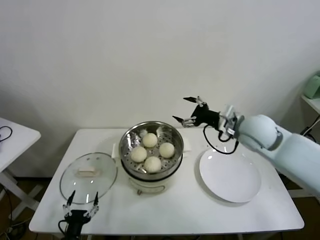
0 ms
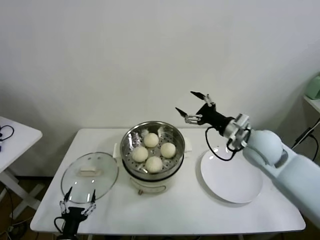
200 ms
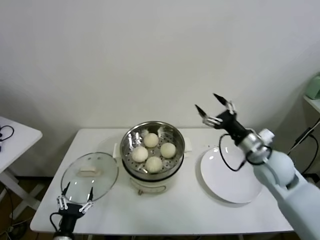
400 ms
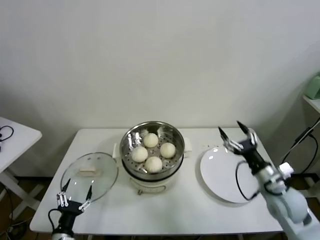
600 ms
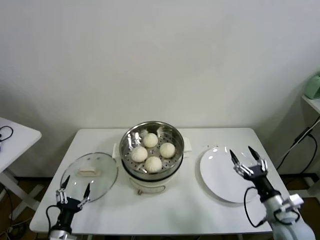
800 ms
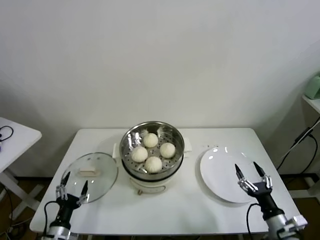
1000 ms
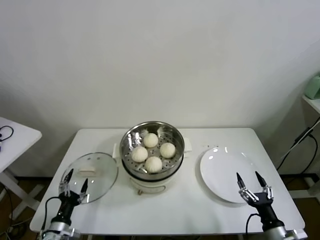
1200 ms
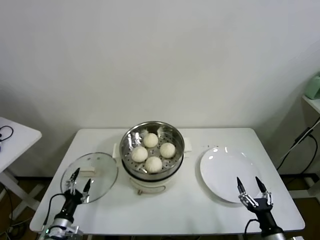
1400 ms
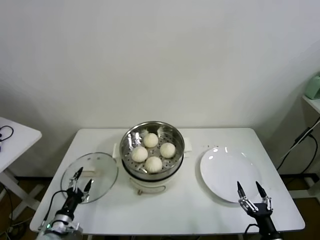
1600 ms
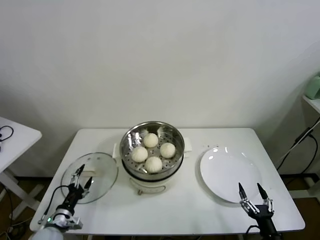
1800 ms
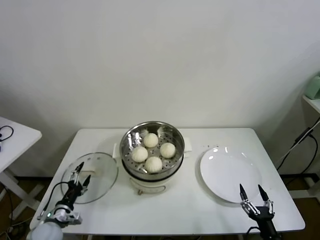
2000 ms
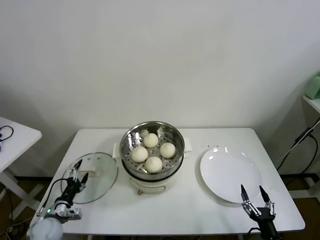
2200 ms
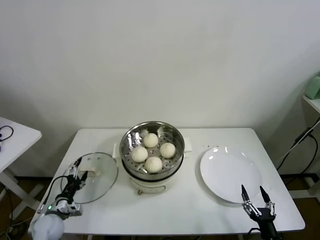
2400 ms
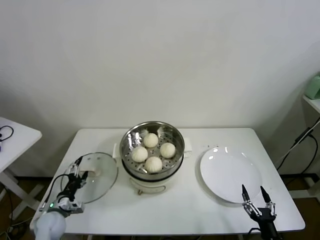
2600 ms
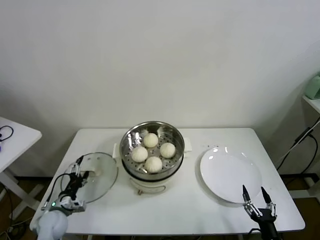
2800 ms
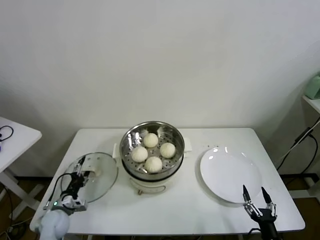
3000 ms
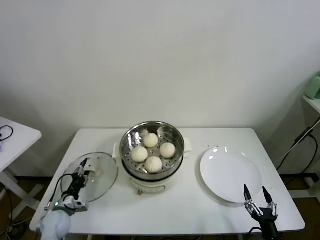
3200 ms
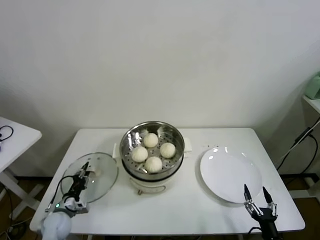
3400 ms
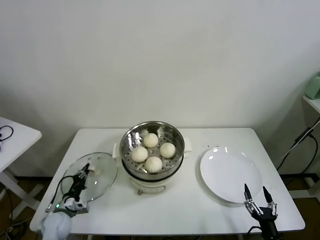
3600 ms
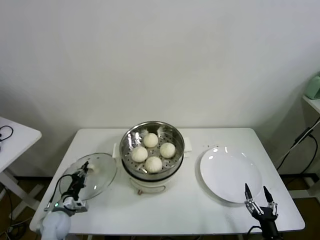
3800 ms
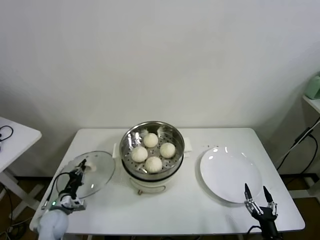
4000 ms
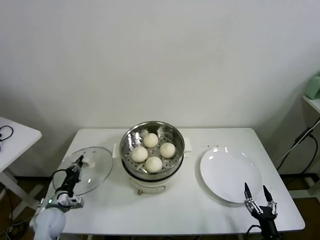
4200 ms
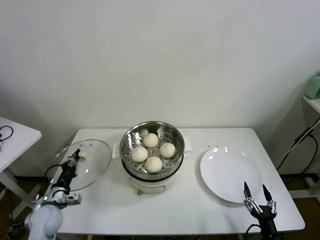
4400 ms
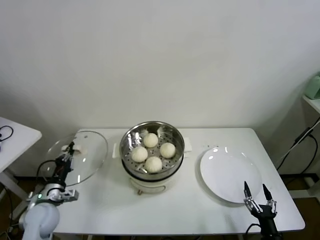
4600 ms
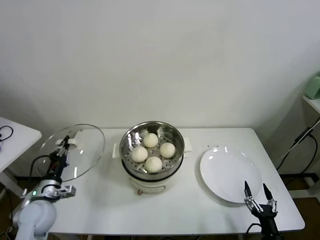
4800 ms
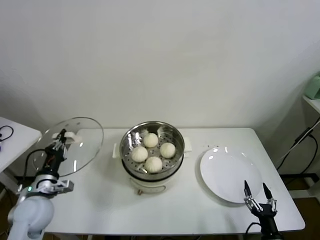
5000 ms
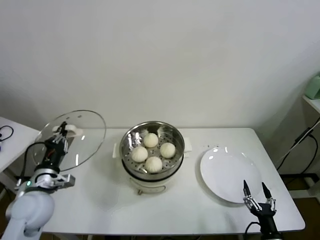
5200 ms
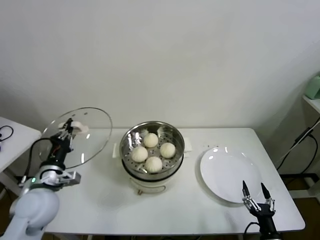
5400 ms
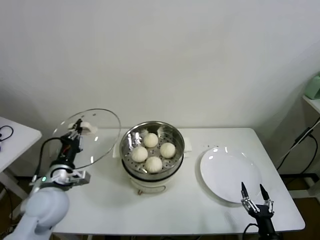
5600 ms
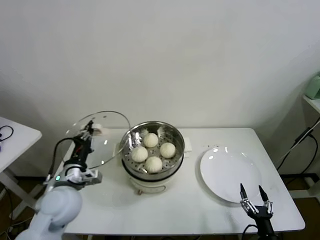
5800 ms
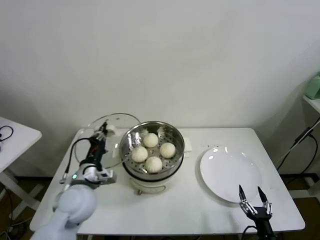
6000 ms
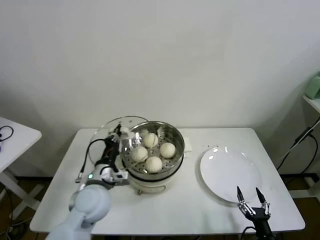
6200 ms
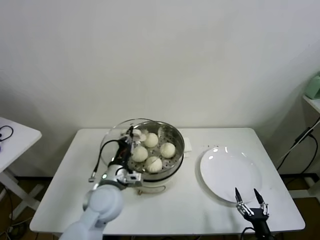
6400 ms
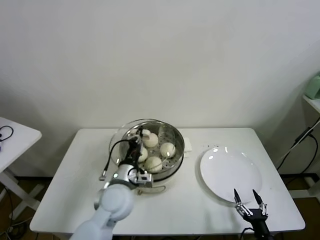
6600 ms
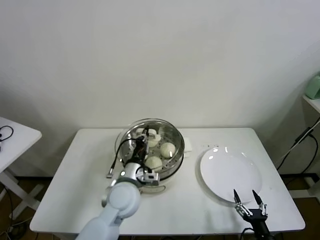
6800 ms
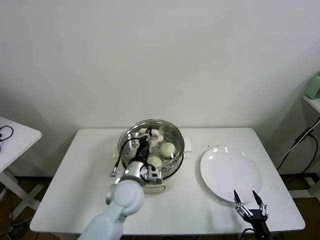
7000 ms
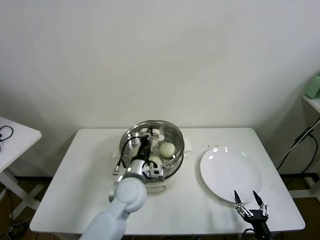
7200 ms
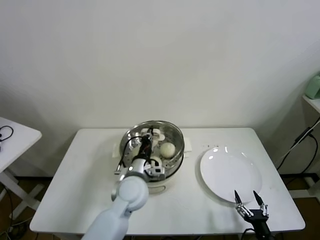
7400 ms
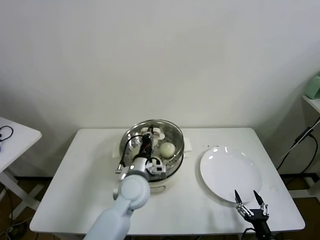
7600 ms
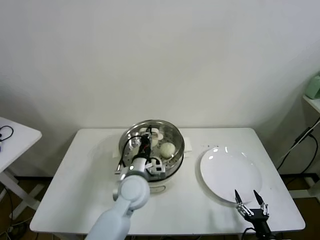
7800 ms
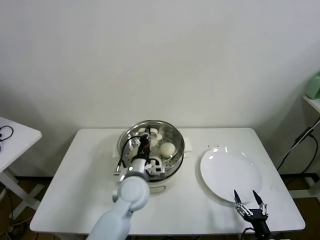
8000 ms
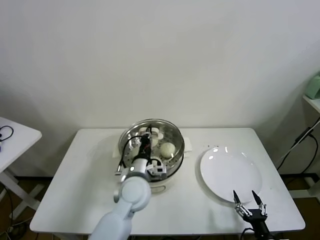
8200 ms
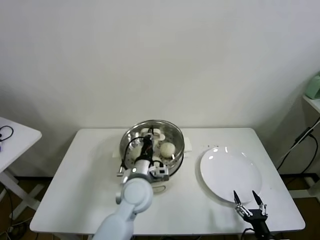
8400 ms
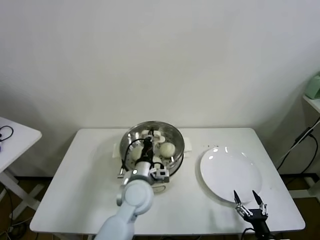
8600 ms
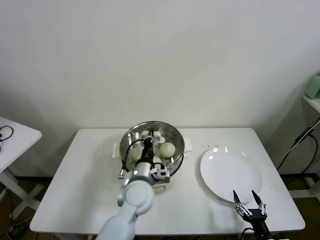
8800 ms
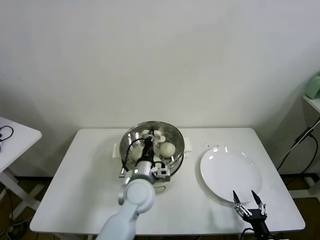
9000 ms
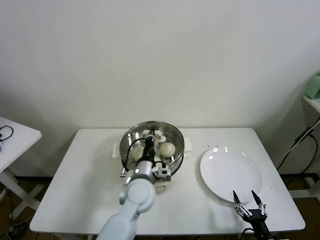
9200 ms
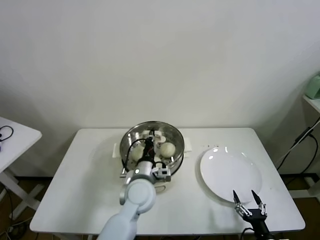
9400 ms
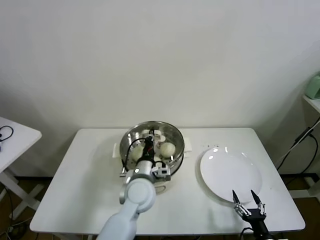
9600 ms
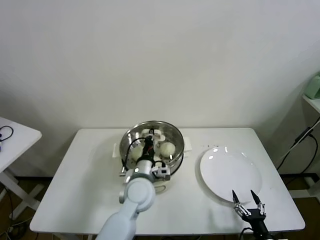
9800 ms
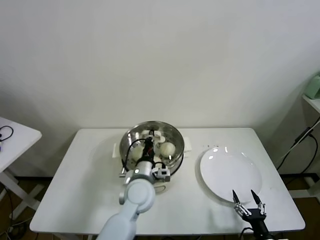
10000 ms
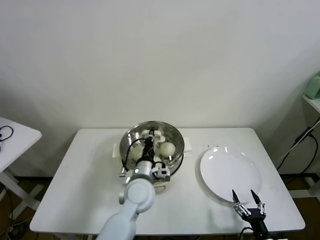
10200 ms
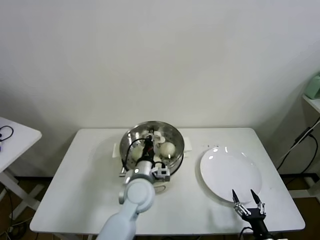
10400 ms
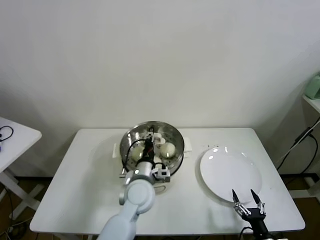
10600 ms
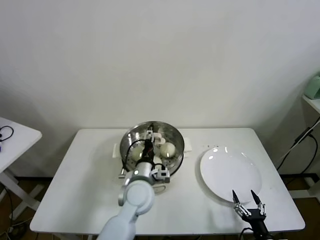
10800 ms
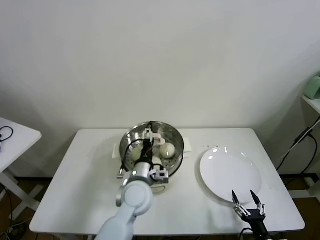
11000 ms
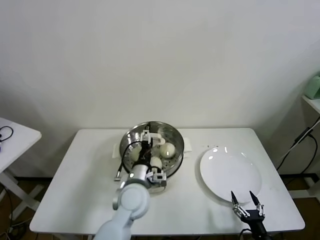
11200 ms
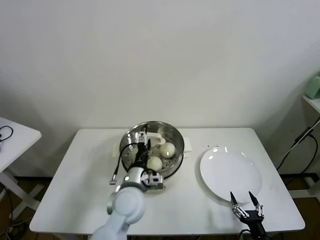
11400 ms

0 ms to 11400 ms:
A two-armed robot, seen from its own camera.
Task of the whole recording: take steamed baozi put them in steamer.
Step, 0 ms to 3600 ms: Grasp the pot lid with left gripper.
Step, 3800 ms to 11200 ms: Place the pot lid on the steamer with left gripper.
0 ms to 1400 ms: The right gripper moves downward and backward, roughly 40 cm. The left gripper is displaced forward and to the left by roughly 10 cm.
1400 ms to 2800 ms: The left gripper moves forward, approximately 10 cm.
2800 ms to 4200 ms: The left gripper closes its fingers.
4200 ms to 5600 ms: The left gripper goes some 20 cm upward and to the right.
5600 ms to 7200 ms: The left gripper goes roughly 20 cm to the right.
7200 ms to 8600 ms: The grippers move only a little.
8600 ms to 10000 ms: Neither gripper changes place.
10000 ms to 11400 ms: The left gripper opens up.

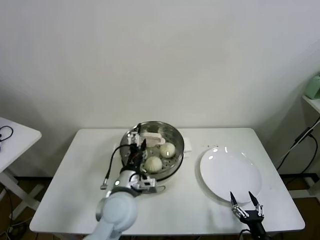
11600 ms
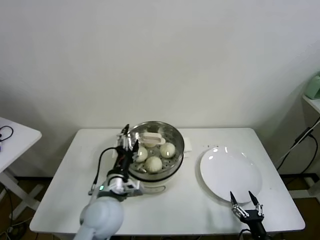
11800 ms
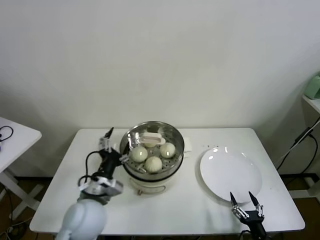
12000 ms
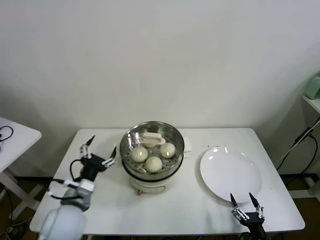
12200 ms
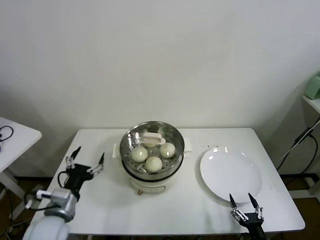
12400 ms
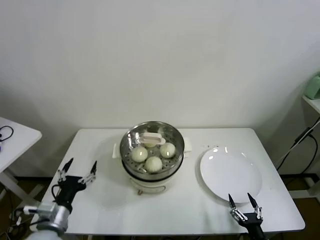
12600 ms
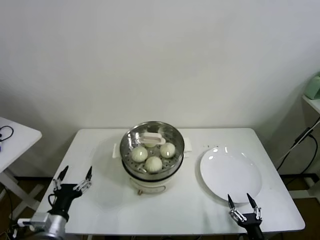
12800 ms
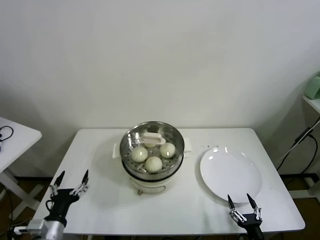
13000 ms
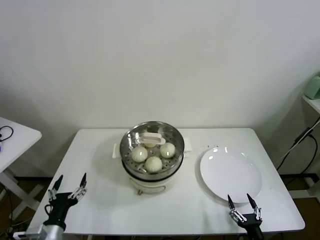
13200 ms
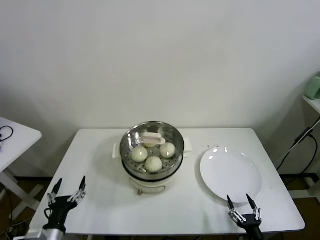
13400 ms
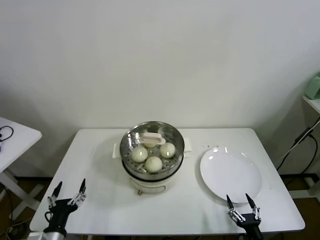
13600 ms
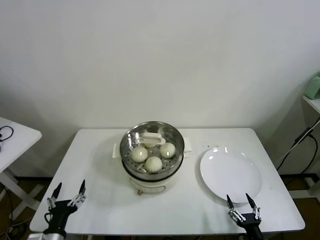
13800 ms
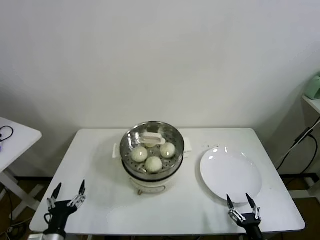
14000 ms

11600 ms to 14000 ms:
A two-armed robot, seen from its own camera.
Task of the whole recording: take steamed baozi put them in steamer.
11600 ms to 12800 ms: The left gripper shifts roughly 25 cm to the left and backward.
12800 ms to 14000 ms: The left gripper travels downward by roughly 5 cm.
